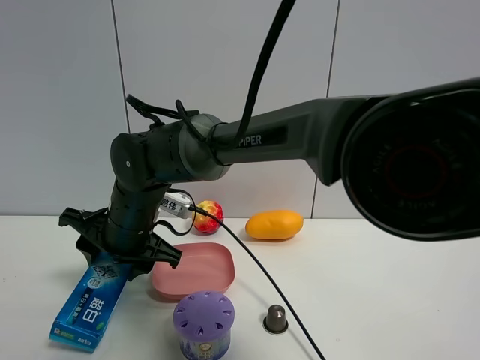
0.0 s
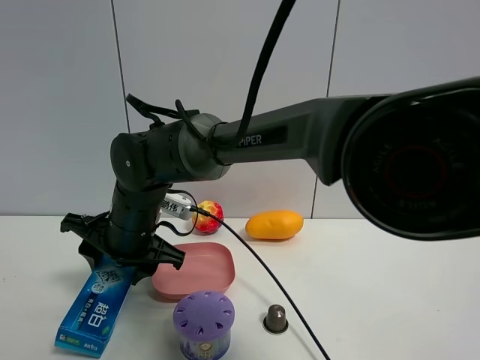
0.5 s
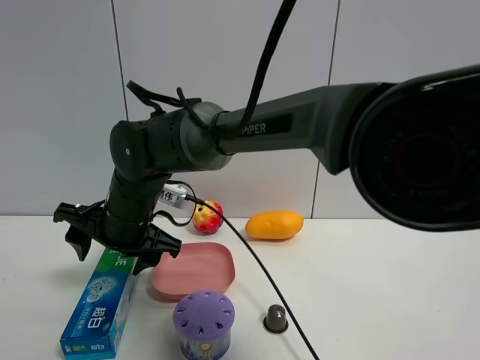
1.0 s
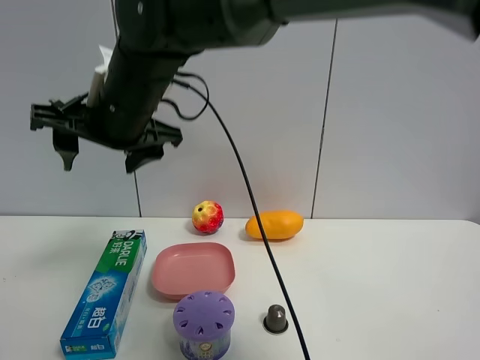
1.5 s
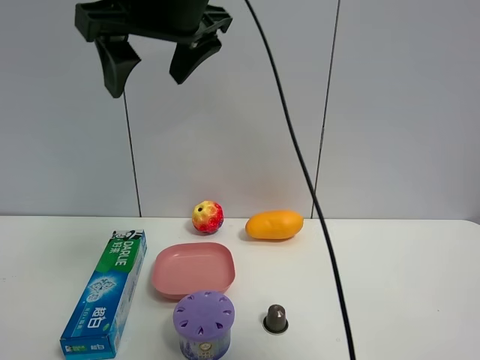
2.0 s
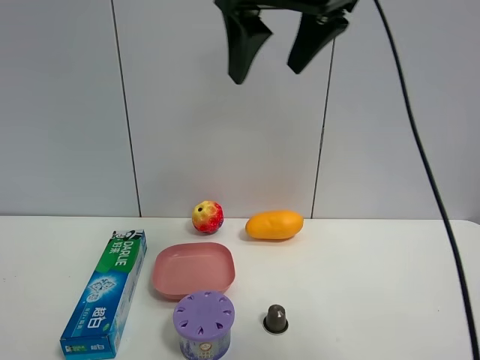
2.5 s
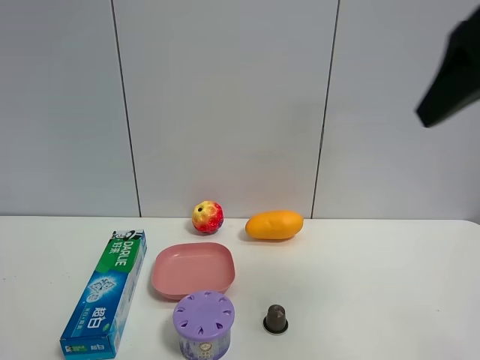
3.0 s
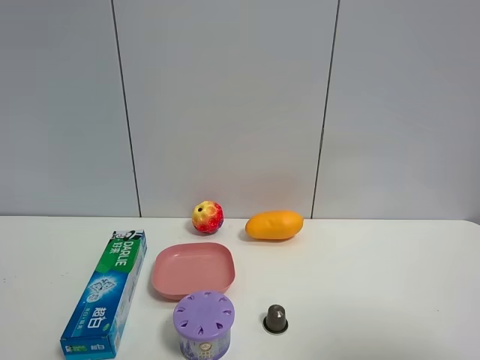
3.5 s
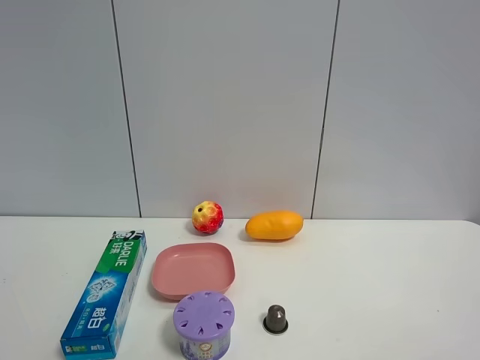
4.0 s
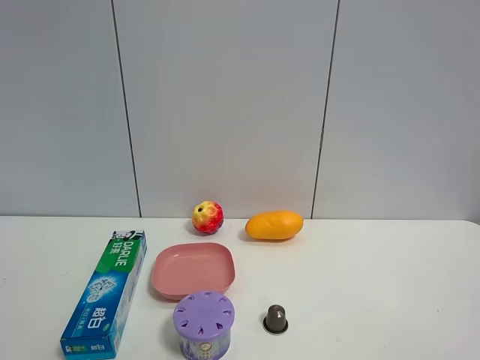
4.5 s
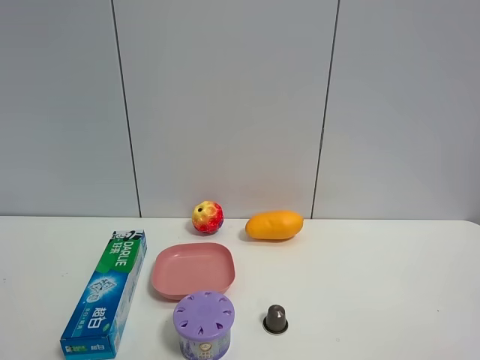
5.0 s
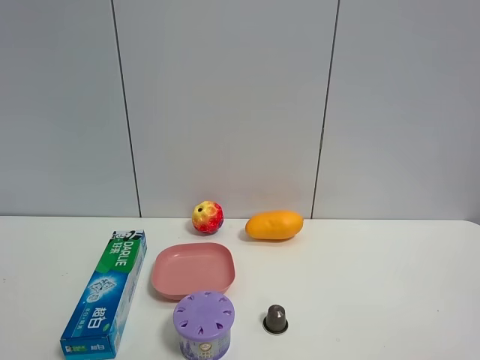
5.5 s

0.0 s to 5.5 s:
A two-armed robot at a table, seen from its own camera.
Task of the whole recording: the gripper move the object.
0.0 to 2.0 s: The right gripper travels upward by some 25 cm, and opens.
2.0 to 3.5 s: The right gripper is displaced to the right and backward by some 40 cm.
3.5 to 5.5 s: The right gripper shifts approximately 10 cm downward and backward.

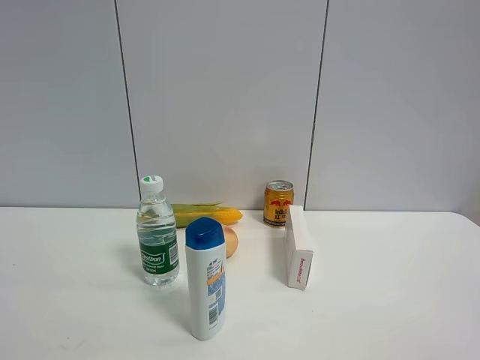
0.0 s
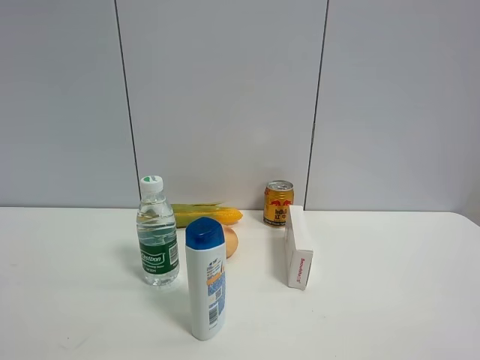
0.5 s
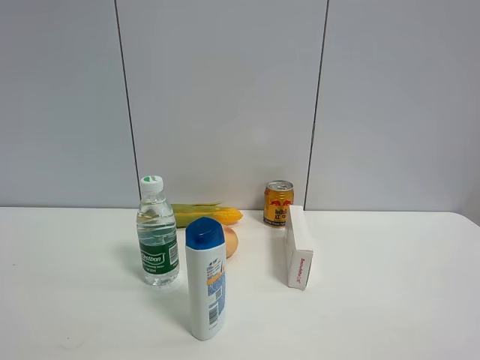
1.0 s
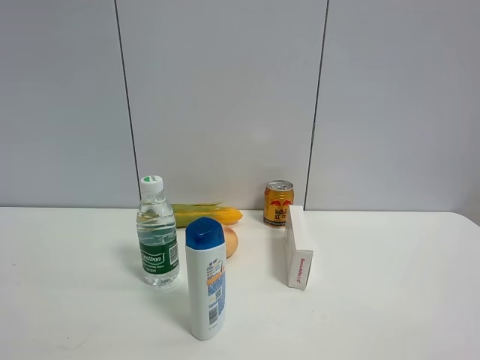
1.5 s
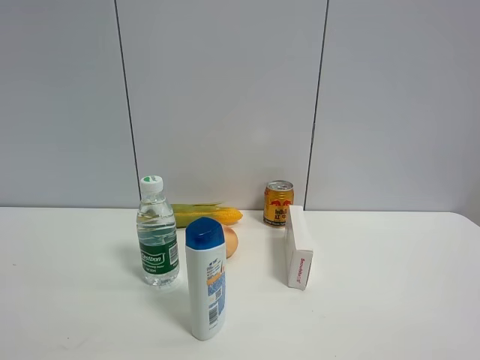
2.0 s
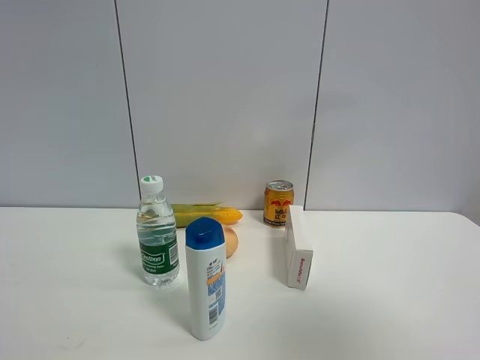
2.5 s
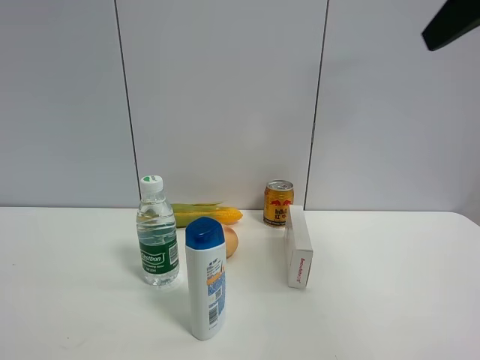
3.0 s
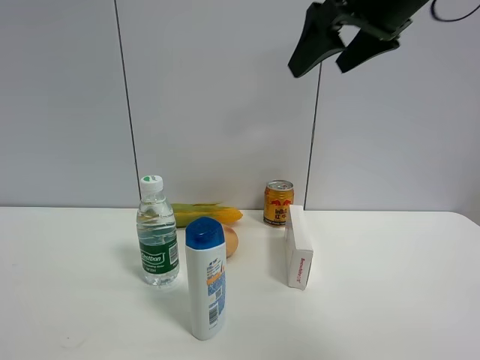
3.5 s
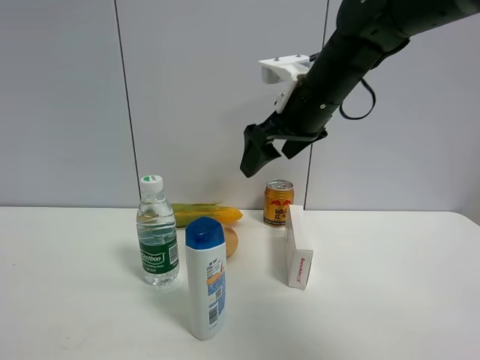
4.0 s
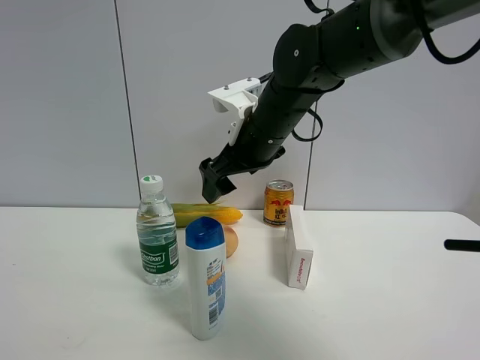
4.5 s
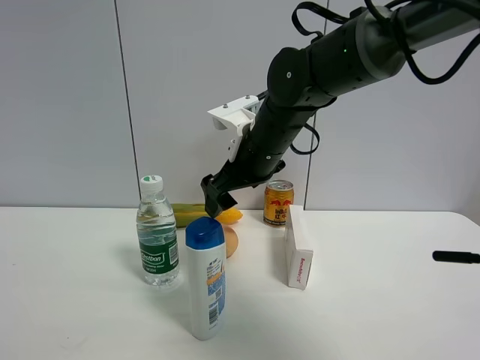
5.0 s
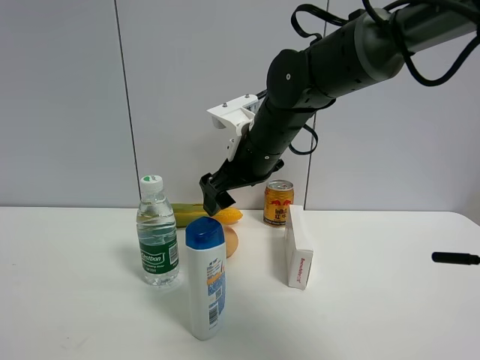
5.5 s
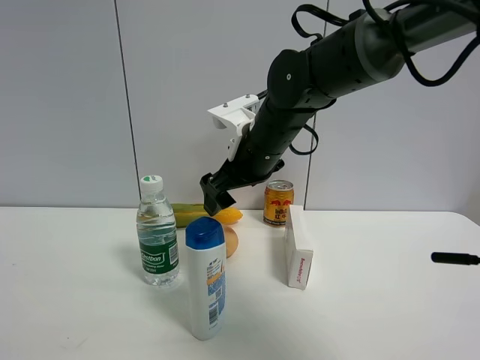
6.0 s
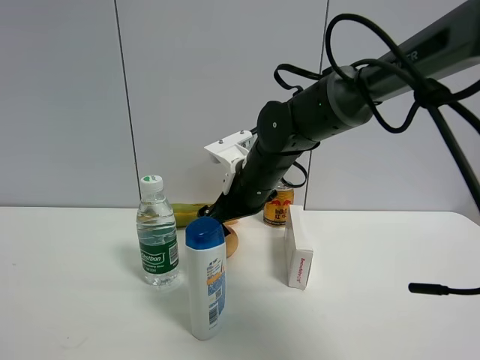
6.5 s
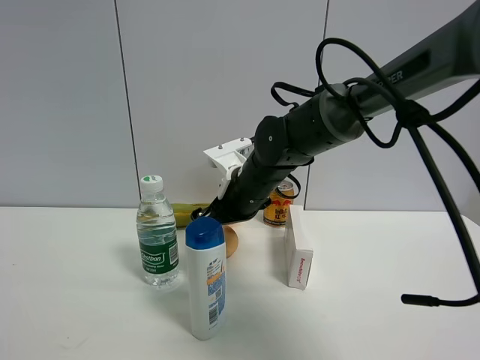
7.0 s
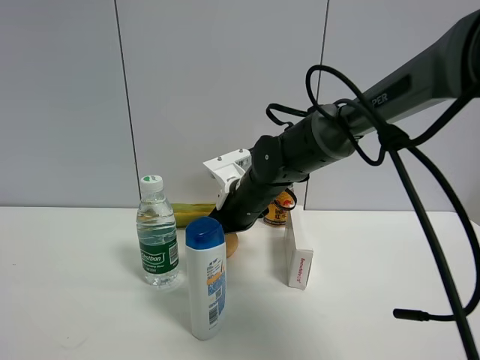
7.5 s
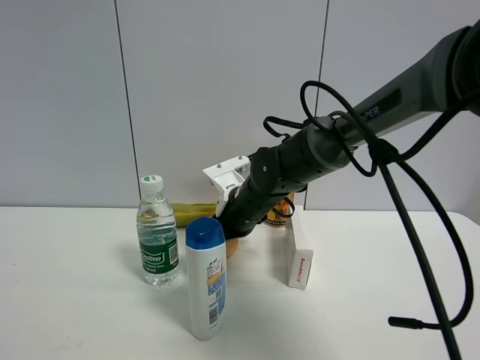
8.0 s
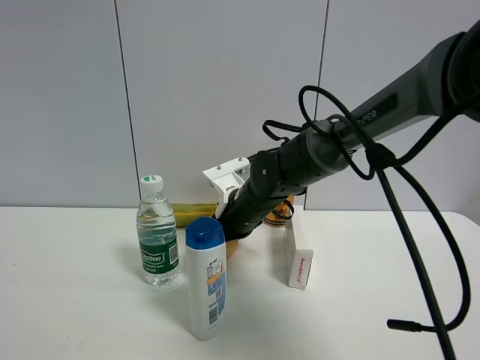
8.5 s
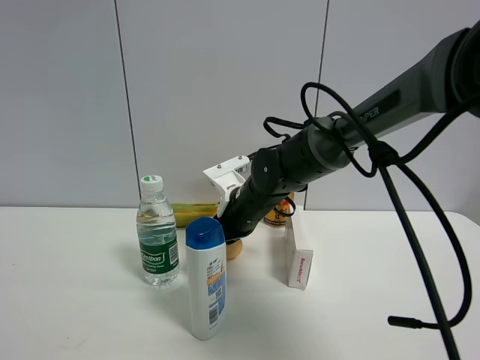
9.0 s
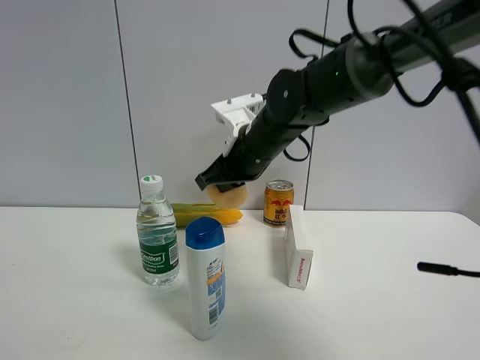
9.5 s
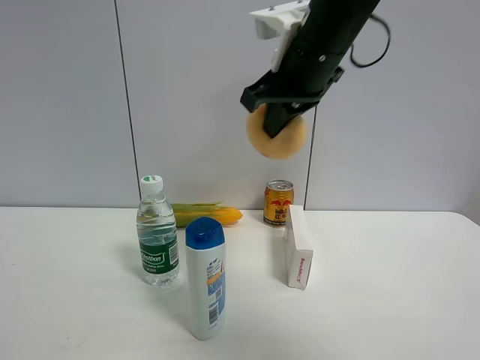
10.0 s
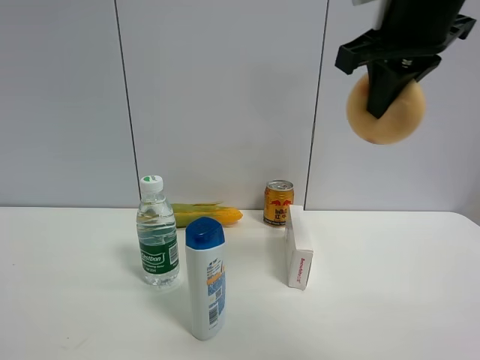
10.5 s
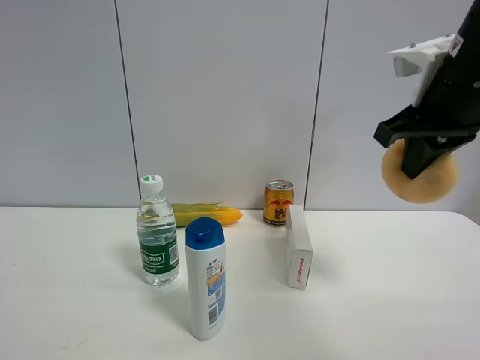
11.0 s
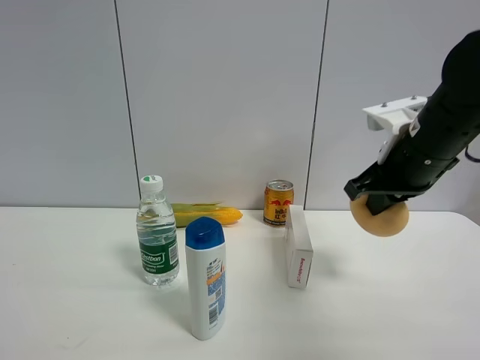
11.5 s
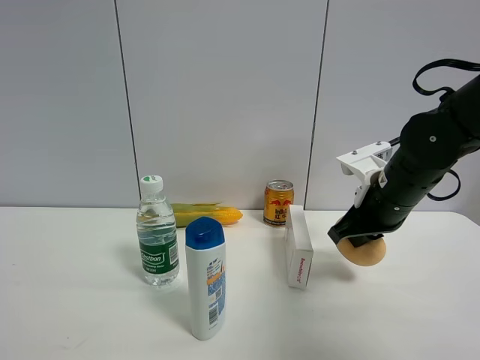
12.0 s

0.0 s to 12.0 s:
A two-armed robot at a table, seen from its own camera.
Task of the whole recording: the gripper move the object.
Step, 0.0 to 8.5 s: Grasp the egg yolk pastry with the right gripper.
2.0 to 4.0 s: The right gripper moves forward and to the left, about 50 cm.
4.0 to 6.0 s: The right gripper travels downward and to the left by some 10 cm.
6.0 to 8.0 s: The right gripper shifts roughly 10 cm downward.
8.0 to 10.0 s: The right gripper goes some 25 cm upward, and closes.
10.0 to 12.0 s: The right gripper moves downward and to the right, about 20 cm.

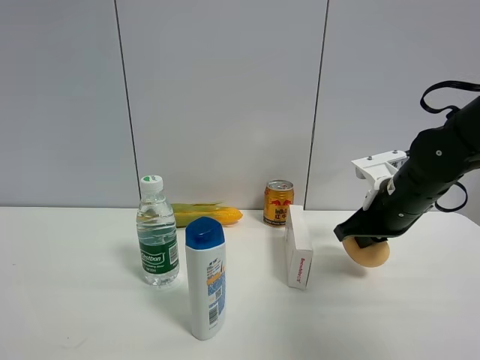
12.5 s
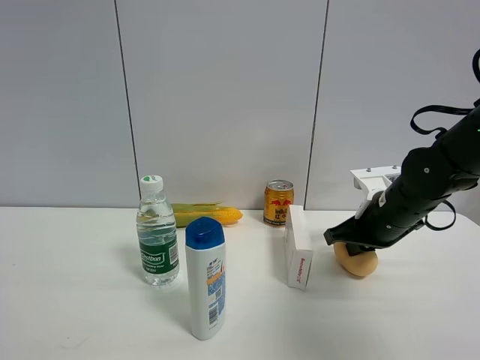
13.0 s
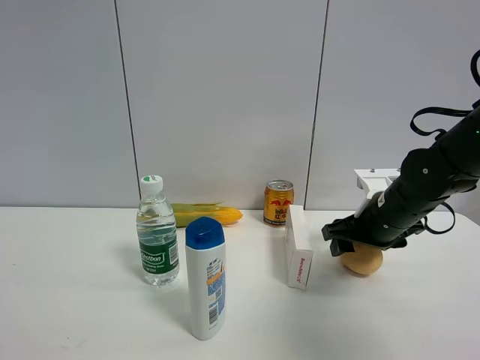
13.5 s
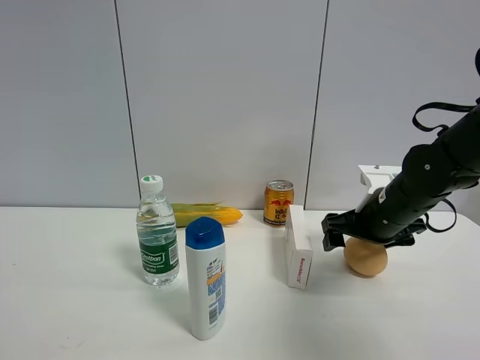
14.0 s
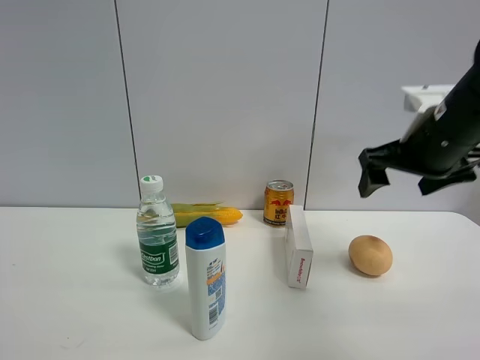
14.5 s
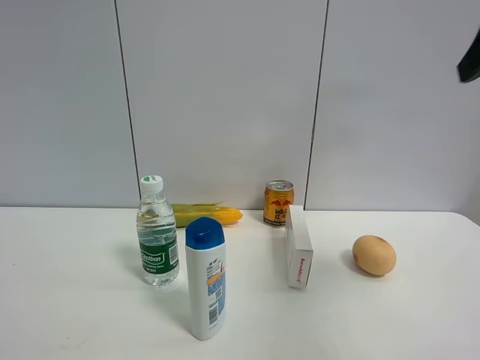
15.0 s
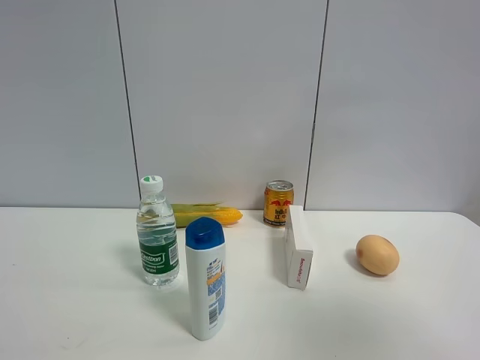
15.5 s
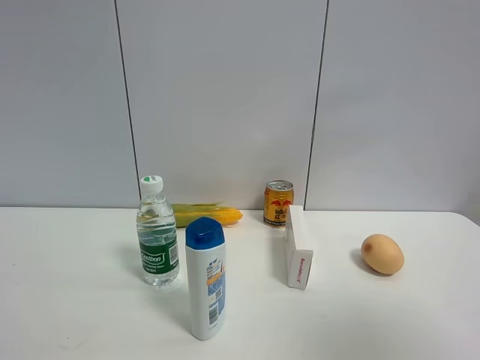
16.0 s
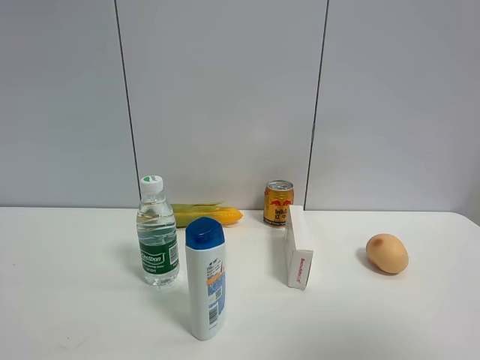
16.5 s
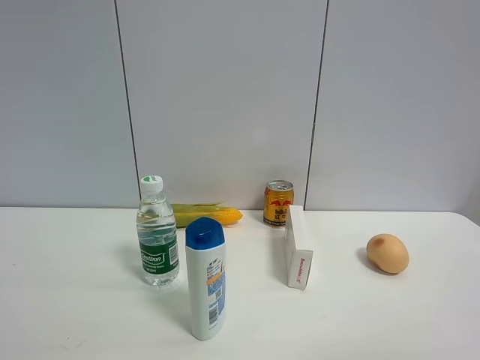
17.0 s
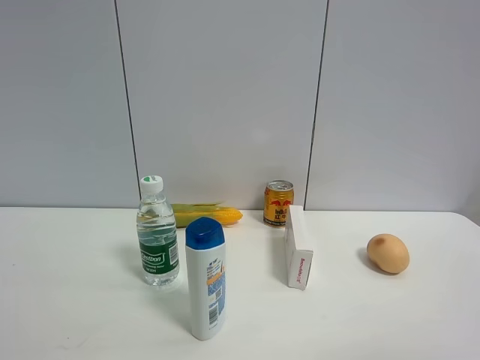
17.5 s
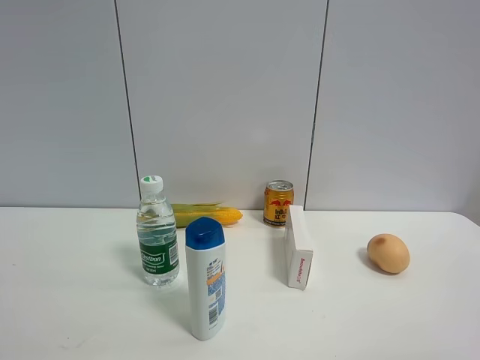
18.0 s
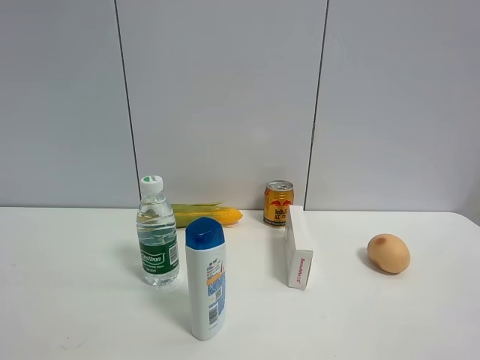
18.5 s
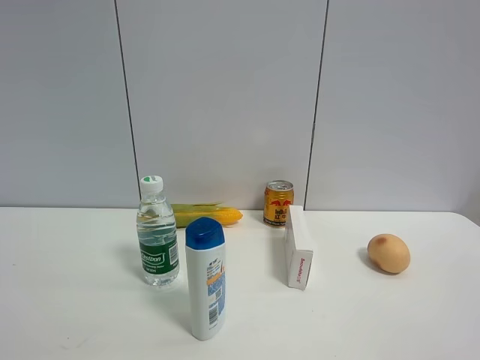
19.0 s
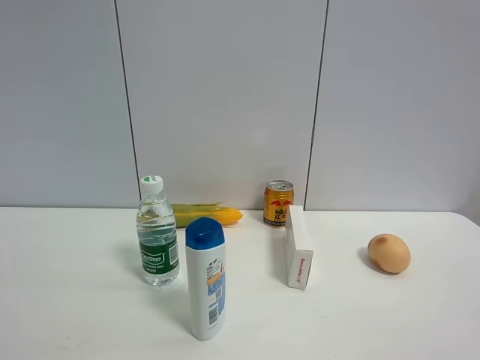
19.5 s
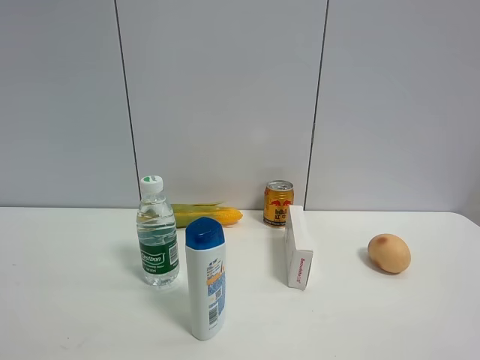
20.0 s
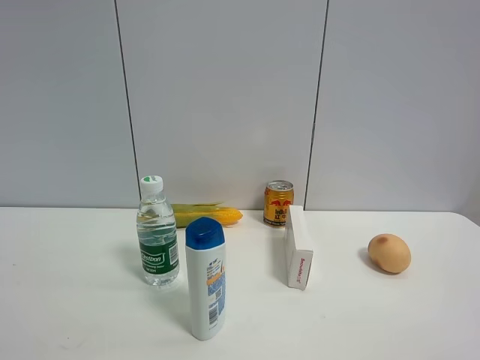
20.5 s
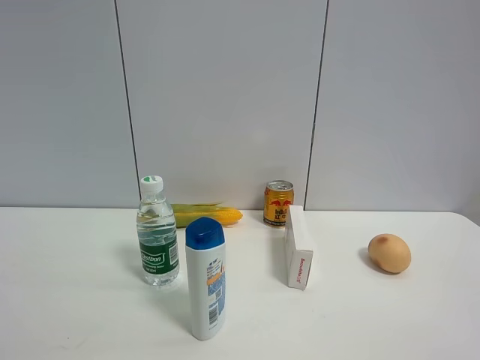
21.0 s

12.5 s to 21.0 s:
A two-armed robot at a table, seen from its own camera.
Task of the whole recording: the gripper move the object.
12.5 to 14.5 s: The right gripper shifts approximately 15 cm upward and backward, and opens up.
14.5 to 16.5 s: The right gripper is displaced backward and upward by roughly 30 cm.
16.5 to 19.0 s: The right gripper moves downward and backward, roughly 10 cm.
